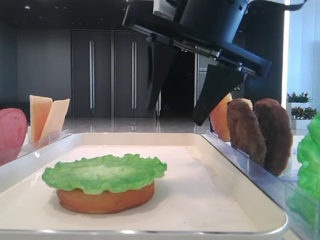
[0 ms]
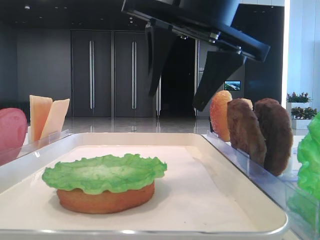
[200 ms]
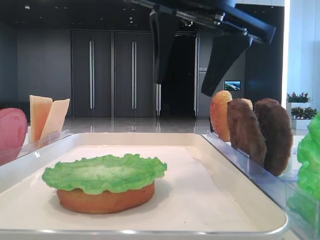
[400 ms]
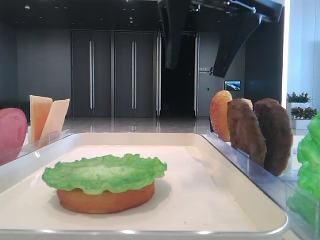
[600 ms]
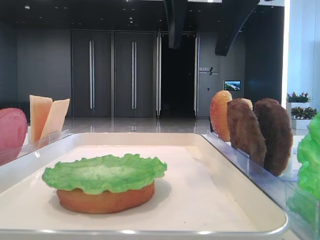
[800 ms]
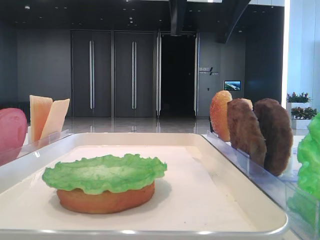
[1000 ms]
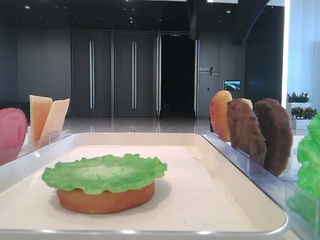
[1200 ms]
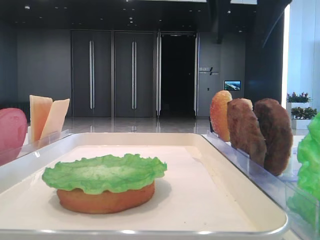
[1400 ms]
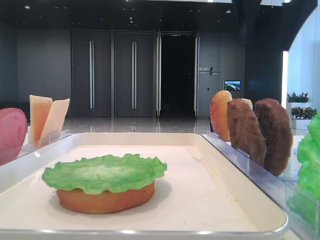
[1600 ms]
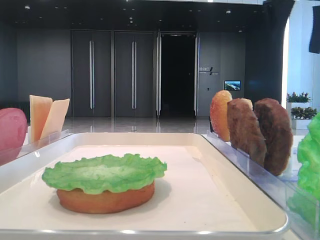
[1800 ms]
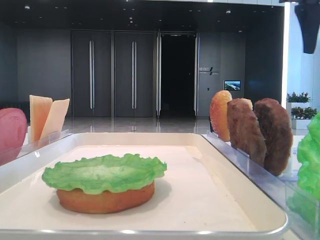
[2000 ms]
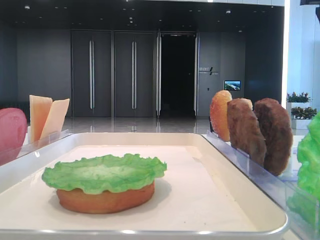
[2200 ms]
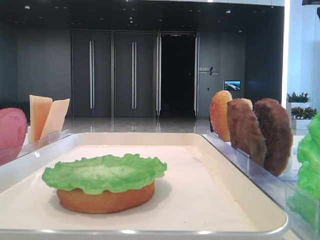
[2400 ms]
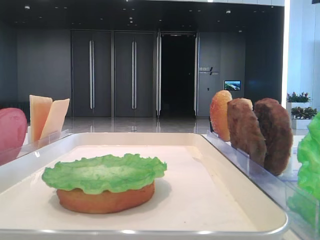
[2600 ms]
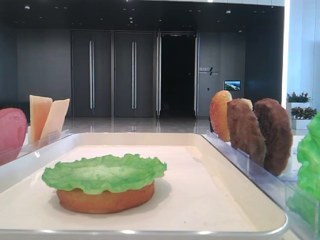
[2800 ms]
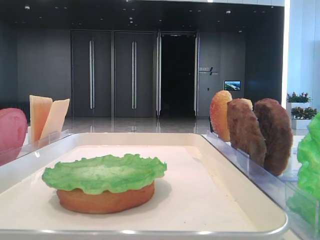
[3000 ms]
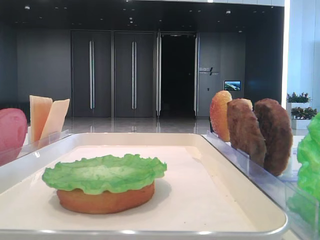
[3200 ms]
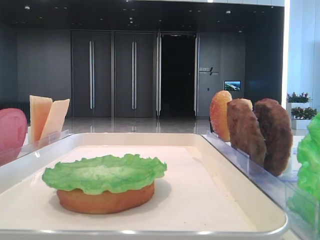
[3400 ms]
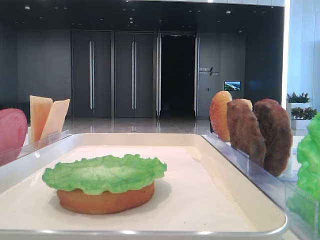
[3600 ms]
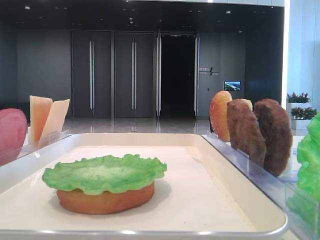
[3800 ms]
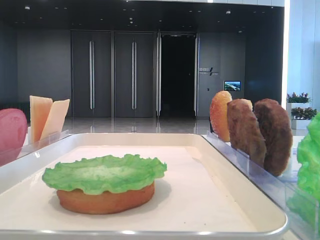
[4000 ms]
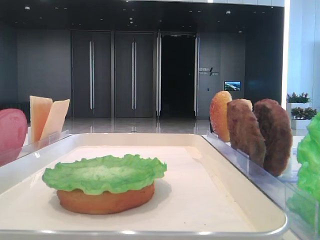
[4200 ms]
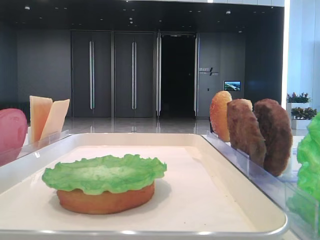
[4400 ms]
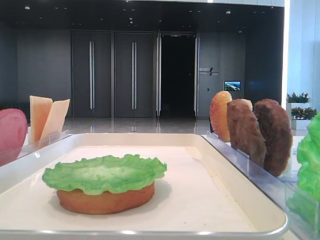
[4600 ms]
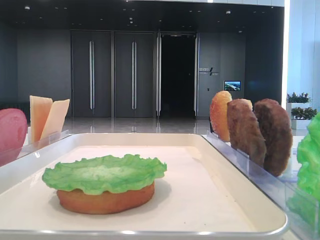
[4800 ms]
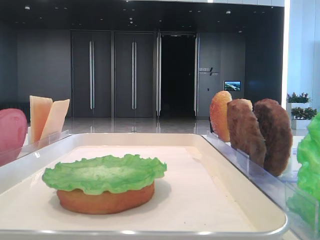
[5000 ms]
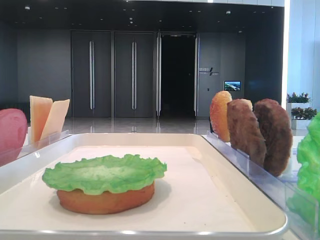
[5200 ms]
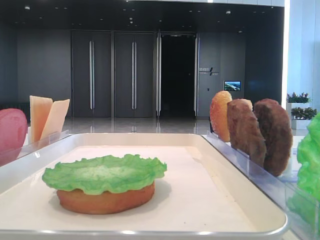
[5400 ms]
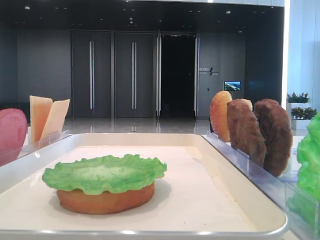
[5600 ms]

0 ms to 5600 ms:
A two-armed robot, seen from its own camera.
0 ms to 1400 ms: The right gripper is displaced upward, to the right and forward by some 15 cm.
2800 ms to 4200 ms: The right gripper moves backward, about 30 cm.

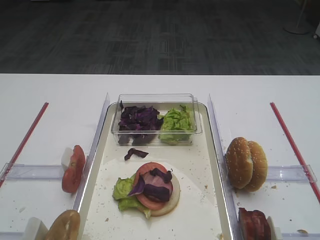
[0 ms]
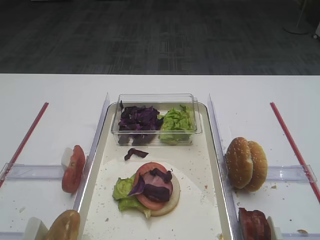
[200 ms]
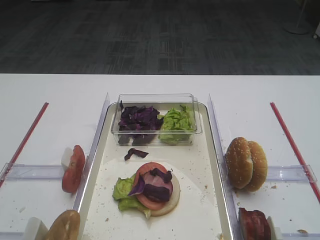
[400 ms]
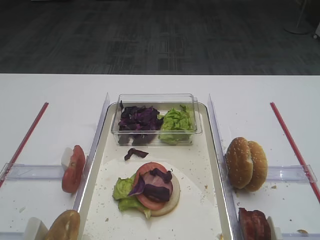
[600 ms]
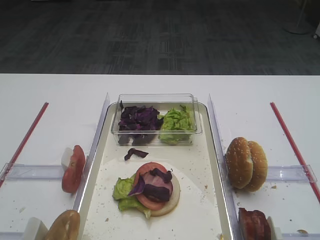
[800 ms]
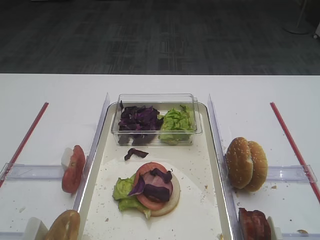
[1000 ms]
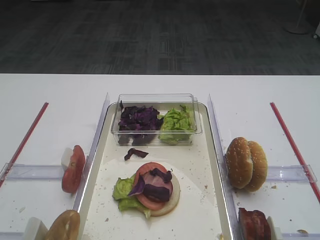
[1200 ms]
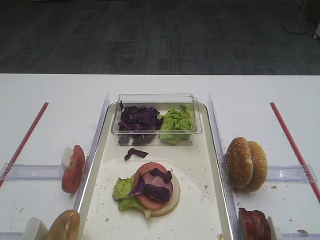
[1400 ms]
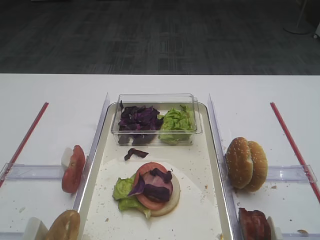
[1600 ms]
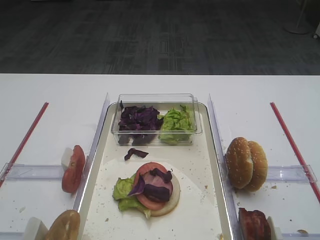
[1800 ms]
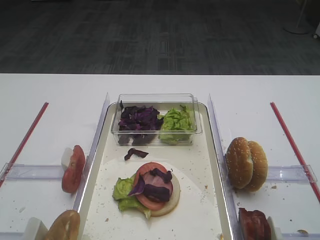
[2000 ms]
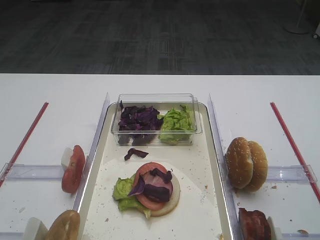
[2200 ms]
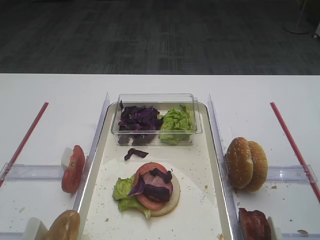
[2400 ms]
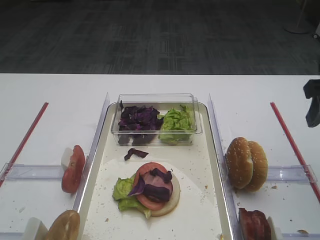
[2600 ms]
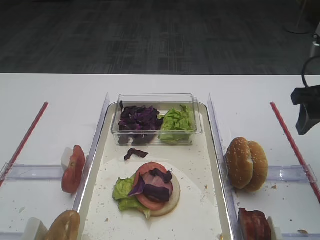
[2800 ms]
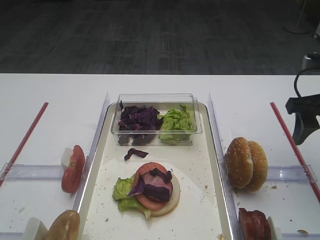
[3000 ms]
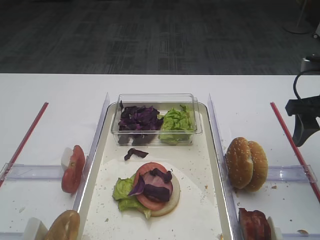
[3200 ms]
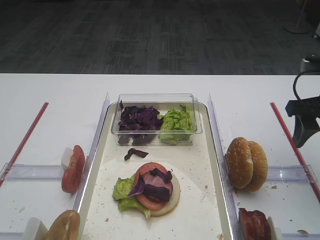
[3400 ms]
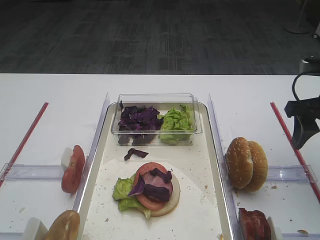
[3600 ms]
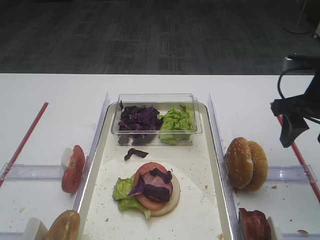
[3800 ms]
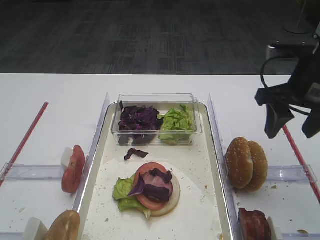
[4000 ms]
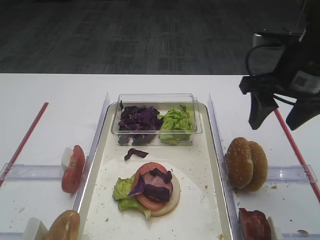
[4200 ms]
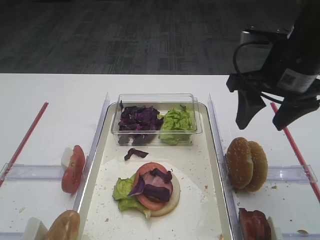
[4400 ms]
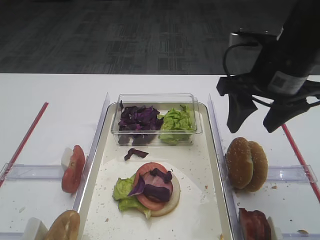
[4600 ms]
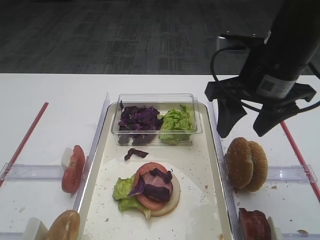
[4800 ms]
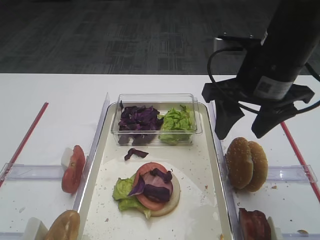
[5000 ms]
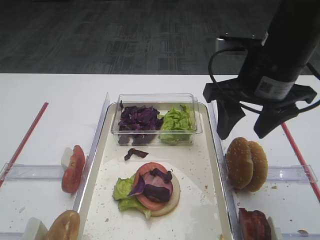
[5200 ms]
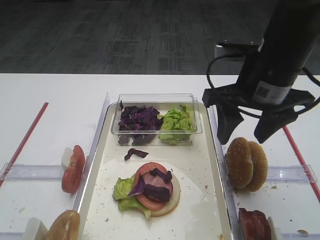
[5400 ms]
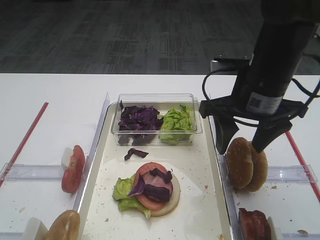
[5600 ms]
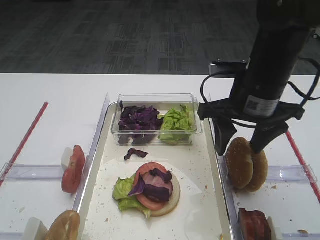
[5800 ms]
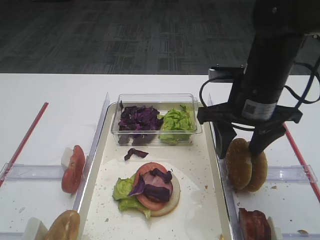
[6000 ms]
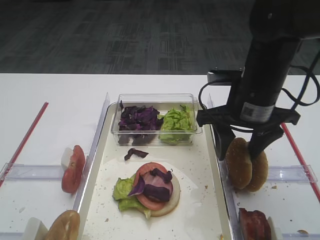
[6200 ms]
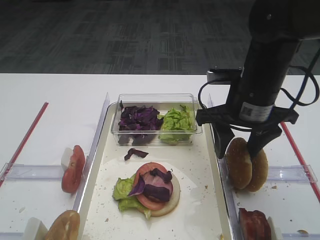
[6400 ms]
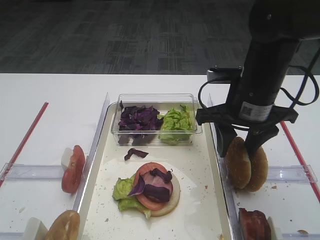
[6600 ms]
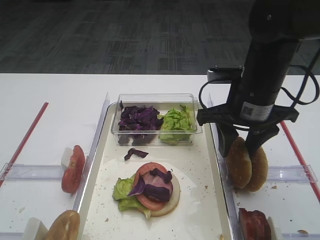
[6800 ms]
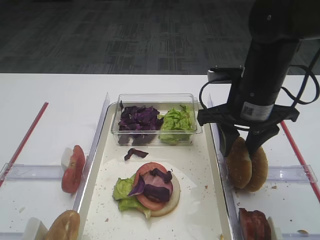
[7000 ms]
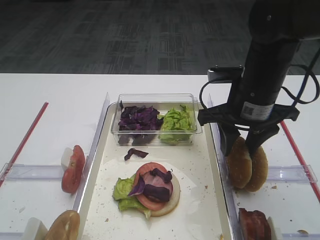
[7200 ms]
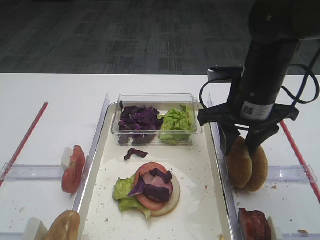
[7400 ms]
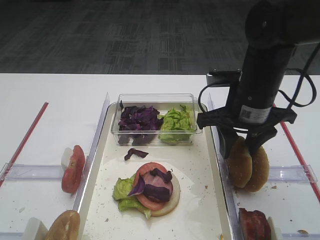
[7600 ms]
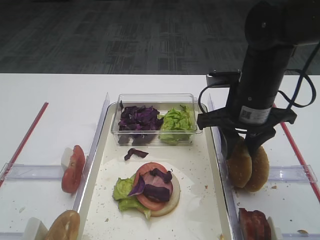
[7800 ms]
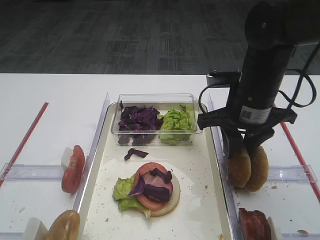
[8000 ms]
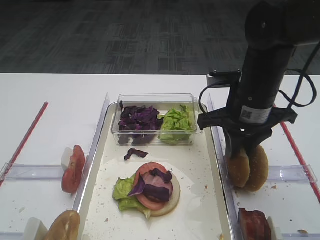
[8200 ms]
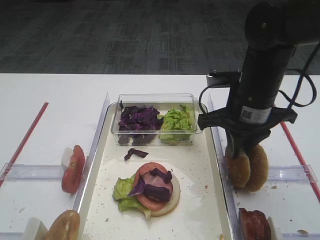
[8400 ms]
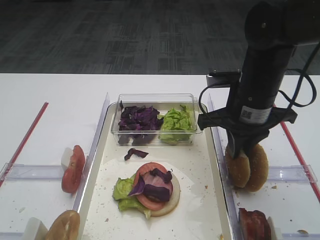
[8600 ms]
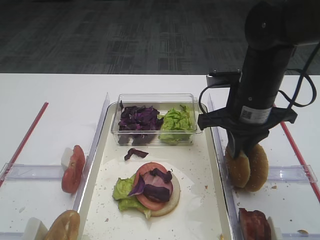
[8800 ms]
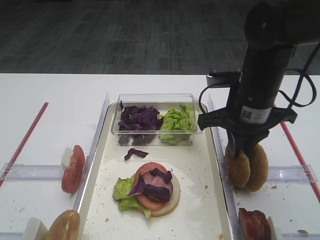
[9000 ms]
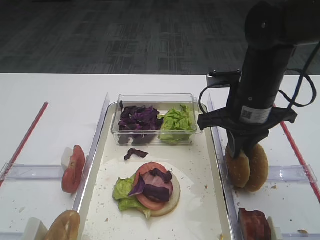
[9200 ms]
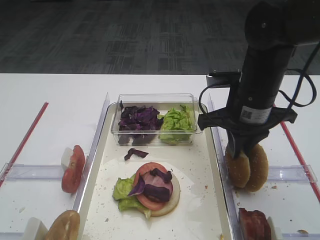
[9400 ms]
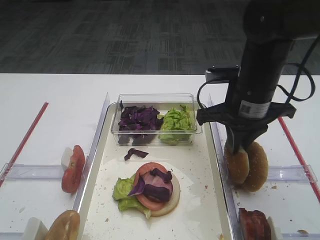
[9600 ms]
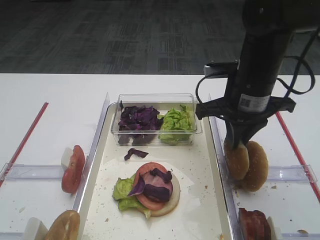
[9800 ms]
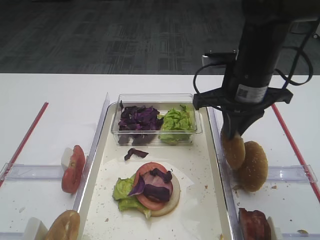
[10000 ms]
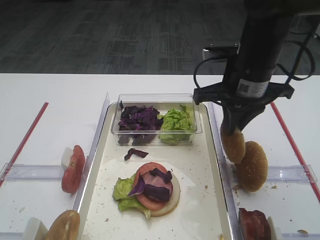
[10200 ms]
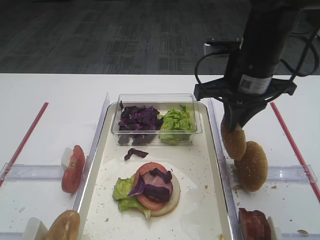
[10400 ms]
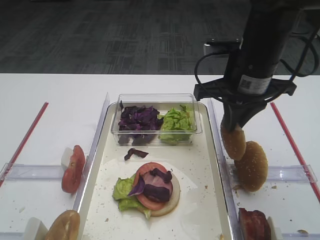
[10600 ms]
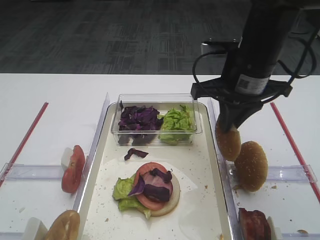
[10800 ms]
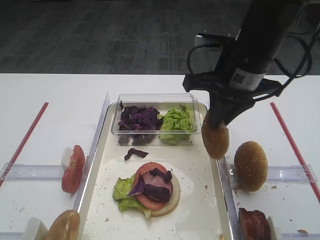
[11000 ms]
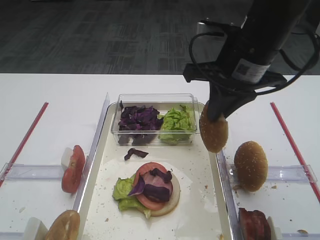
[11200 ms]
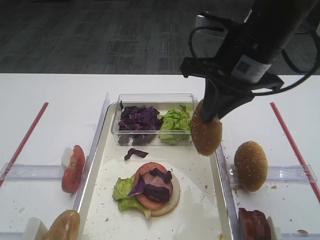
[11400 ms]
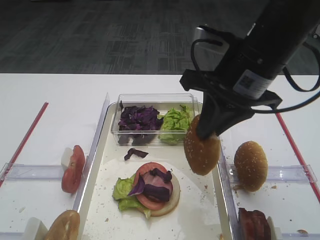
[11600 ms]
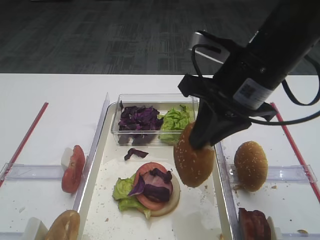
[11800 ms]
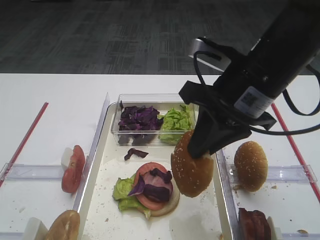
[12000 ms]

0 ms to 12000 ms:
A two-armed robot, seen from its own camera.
Step, 0 ms to 10600 ms: Pick up the hamburger lid with the right gripper.
1600 ms to 3000 ms: The right gripper moves forward, about 25 cm.
3000 ms to 4400 ms: The right gripper shifts roughly 10 cm to the left.
4400 ms to 6000 ms: The right gripper moves some 5 cm.
6000 ms to 7600 ms: The grippers make only small movements.
7600 ms to 9000 ms: The right gripper closes.
9000 ms to 10400 ms: There are only small adjustments of the grippers.
10400 ms to 12000 ms: The right gripper is displaced backward by about 5 cm.

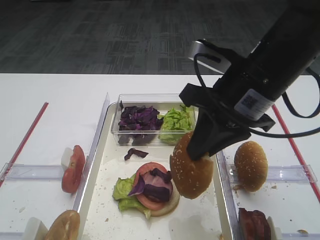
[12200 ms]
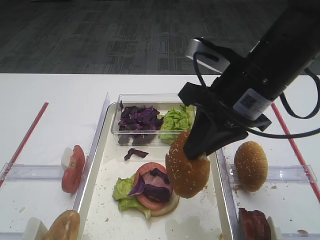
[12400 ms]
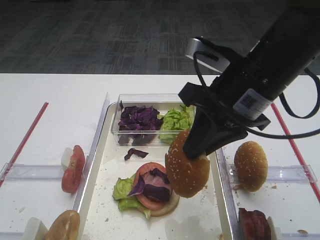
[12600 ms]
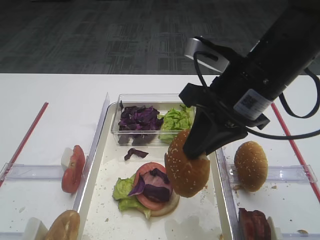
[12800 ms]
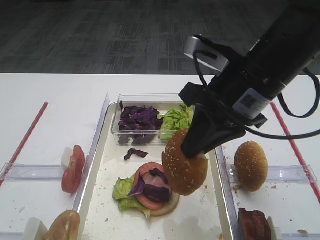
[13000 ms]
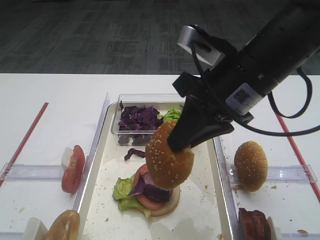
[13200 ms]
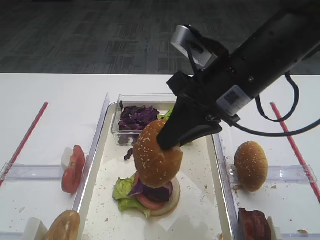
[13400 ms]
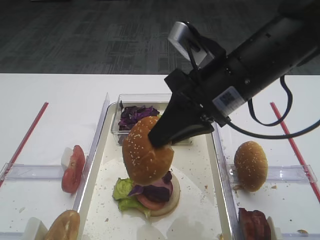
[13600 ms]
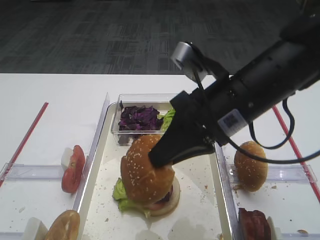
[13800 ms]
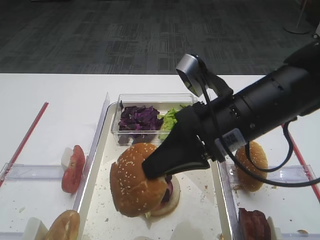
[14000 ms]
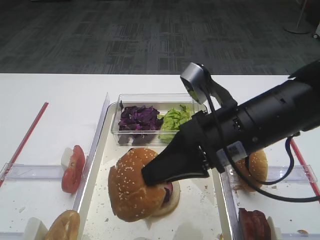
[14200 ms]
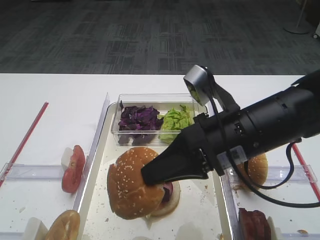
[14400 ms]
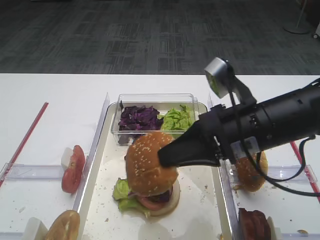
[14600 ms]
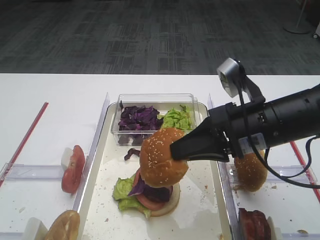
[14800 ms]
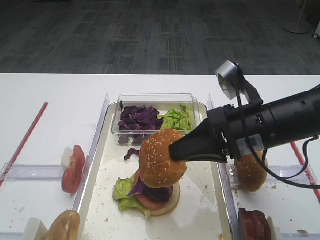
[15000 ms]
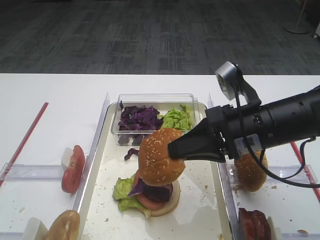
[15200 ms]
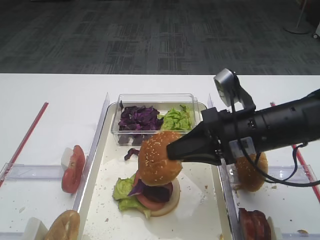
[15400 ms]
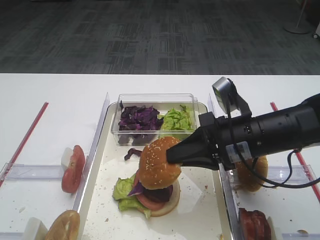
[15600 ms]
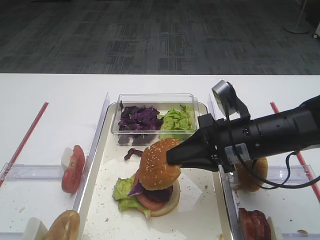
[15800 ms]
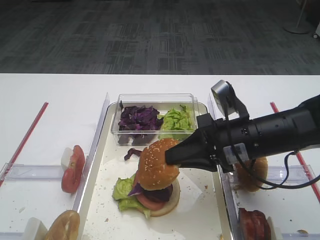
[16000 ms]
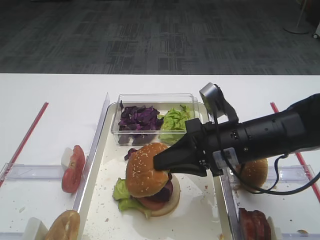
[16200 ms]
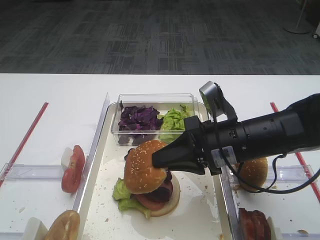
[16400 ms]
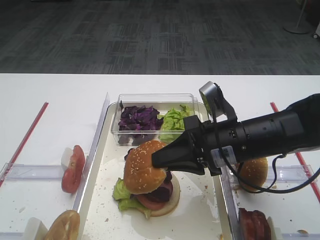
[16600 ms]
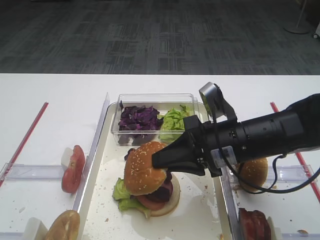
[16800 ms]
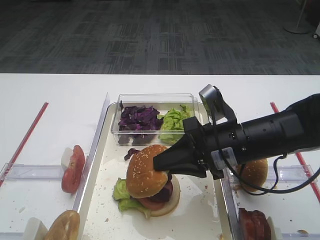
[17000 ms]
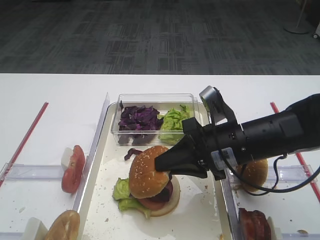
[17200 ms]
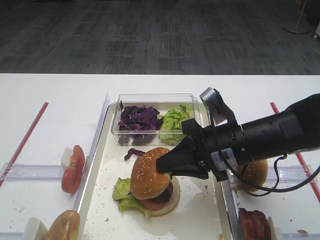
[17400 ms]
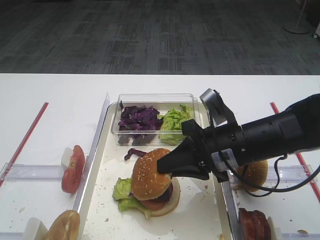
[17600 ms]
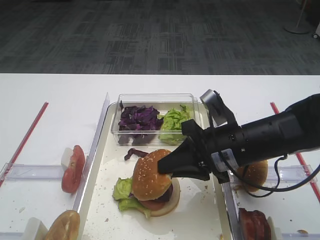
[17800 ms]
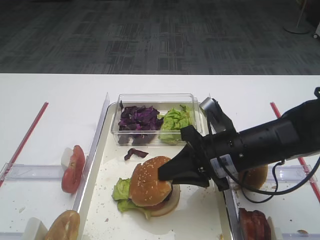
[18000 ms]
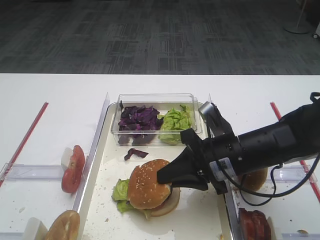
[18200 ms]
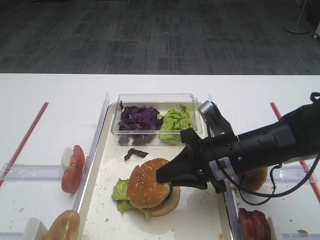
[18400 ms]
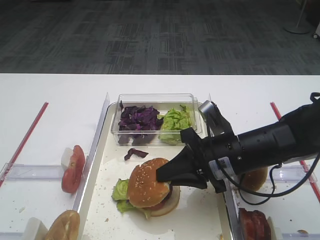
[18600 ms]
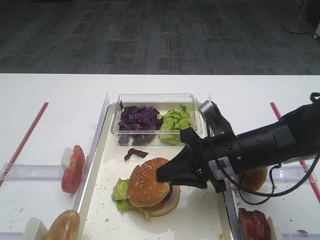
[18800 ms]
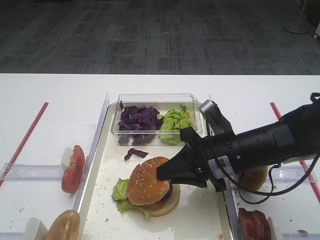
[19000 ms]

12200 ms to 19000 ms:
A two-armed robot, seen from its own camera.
13600 ms to 15000 ms: The right gripper heads downward, covering roughly 10 cm.
15000 ms to 17600 ms: The grippers make only small movements.
17600 ms to 19000 ms: The grippers move only a little.
